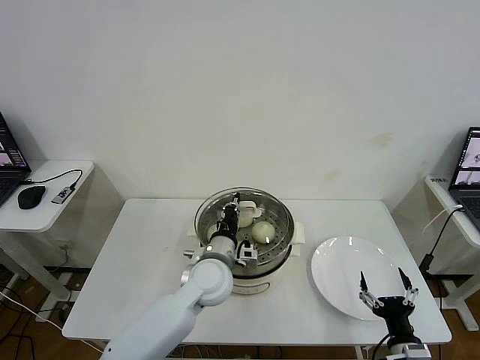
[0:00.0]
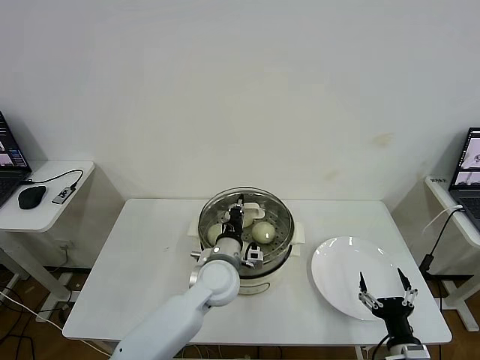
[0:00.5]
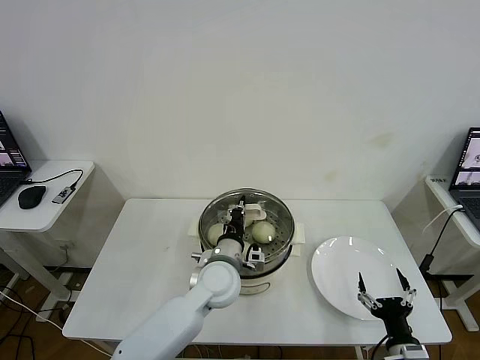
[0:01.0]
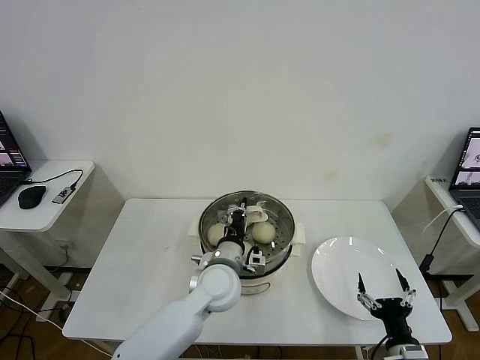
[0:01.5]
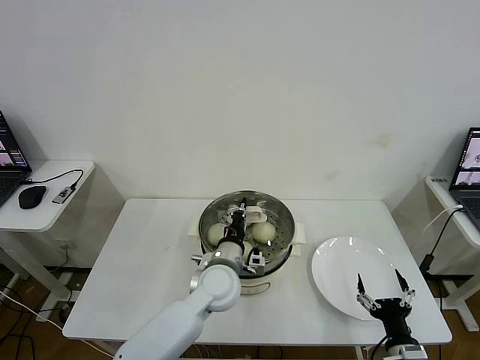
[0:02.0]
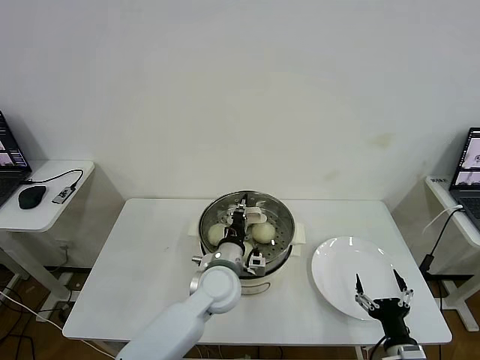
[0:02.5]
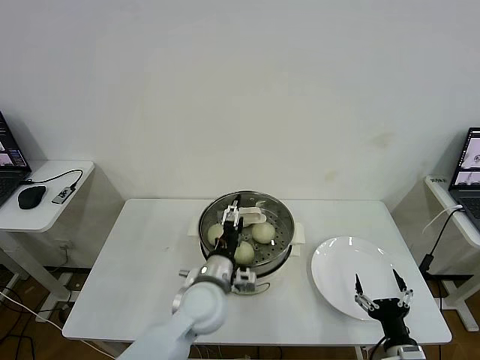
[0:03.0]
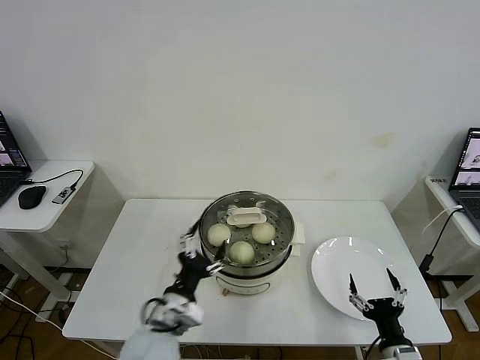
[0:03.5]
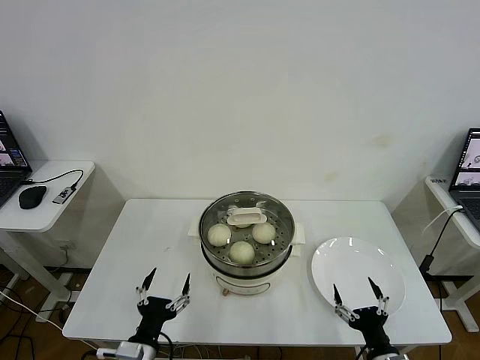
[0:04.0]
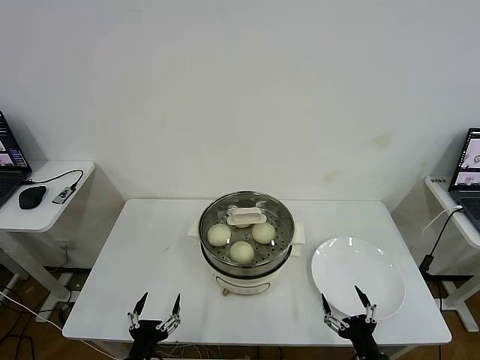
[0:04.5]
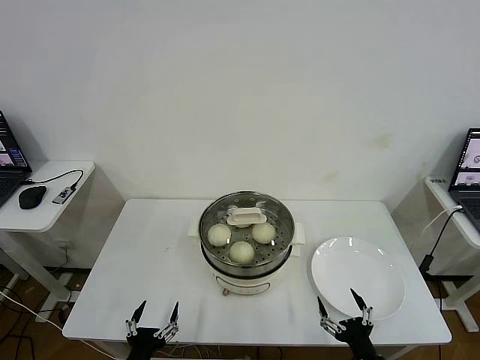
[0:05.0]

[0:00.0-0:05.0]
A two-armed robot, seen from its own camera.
Task of the whole recording: take steamed baozi put them in steamer then cover it.
Step, 0:00.0 to 0:03.0: Place the pot lid on the steamer with left gripper.
0:00.0 to 0:02.5: There are only small adjustments of the grippers.
0:02.5 to 0:05.0: The right gripper shifts by some 5 cm; the left gripper heads backward, to the left and downward, covering approximately 35 cm, and opens.
